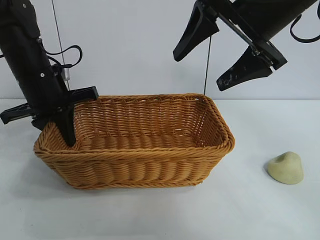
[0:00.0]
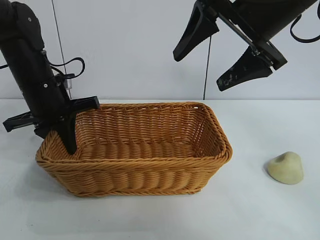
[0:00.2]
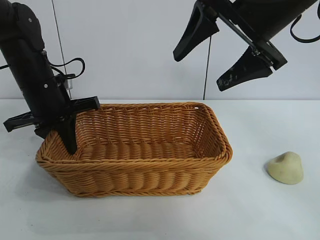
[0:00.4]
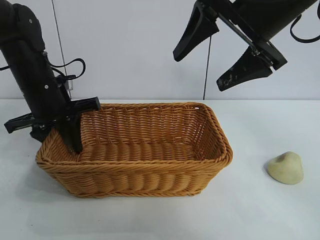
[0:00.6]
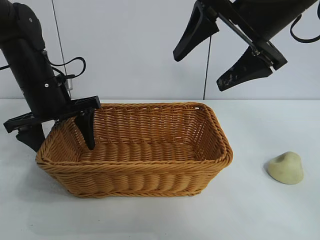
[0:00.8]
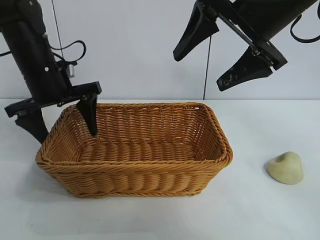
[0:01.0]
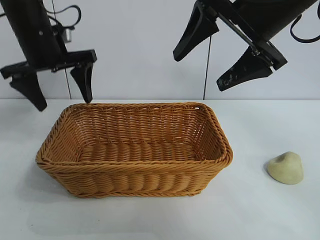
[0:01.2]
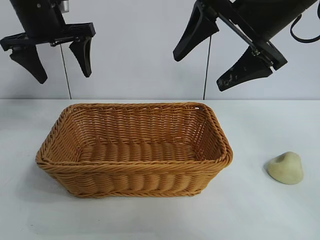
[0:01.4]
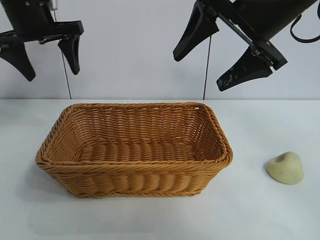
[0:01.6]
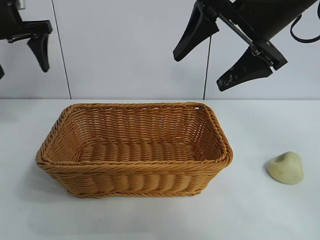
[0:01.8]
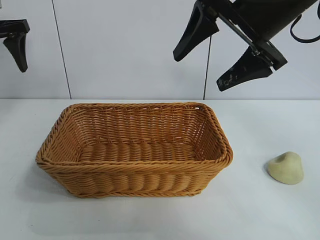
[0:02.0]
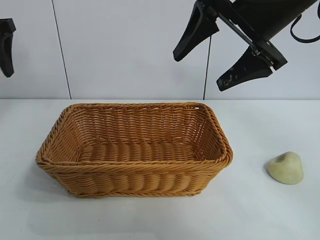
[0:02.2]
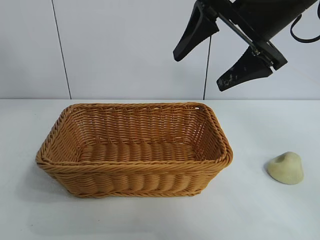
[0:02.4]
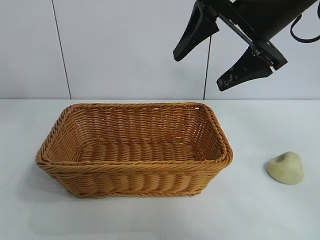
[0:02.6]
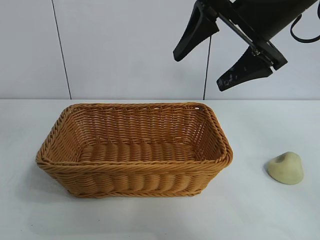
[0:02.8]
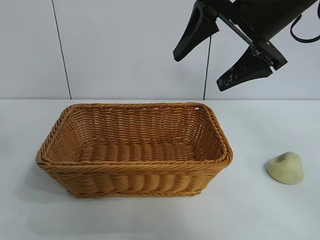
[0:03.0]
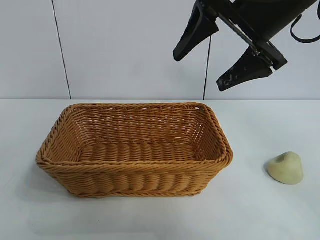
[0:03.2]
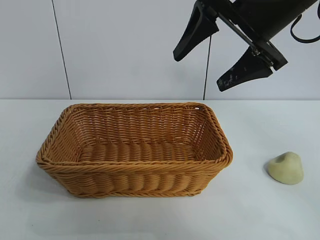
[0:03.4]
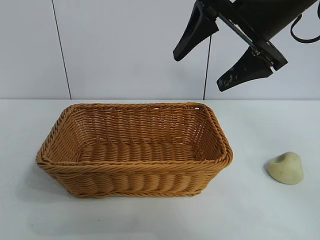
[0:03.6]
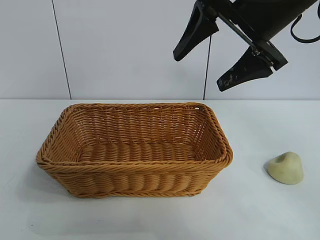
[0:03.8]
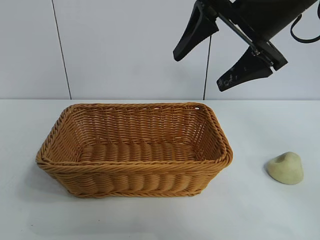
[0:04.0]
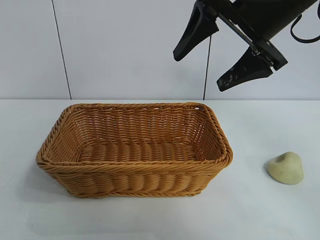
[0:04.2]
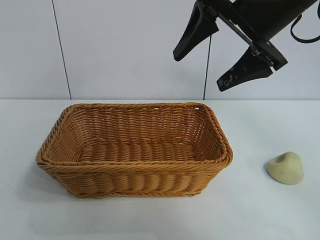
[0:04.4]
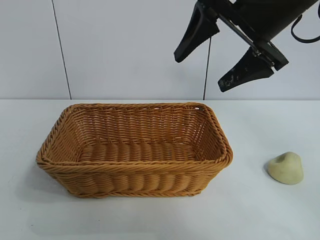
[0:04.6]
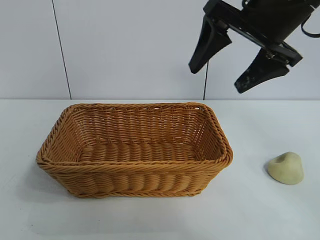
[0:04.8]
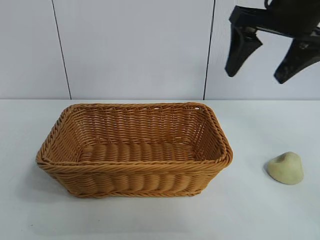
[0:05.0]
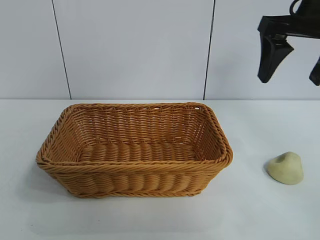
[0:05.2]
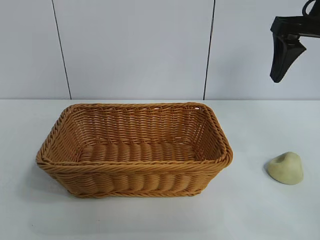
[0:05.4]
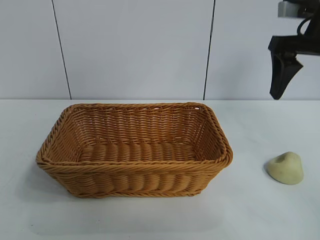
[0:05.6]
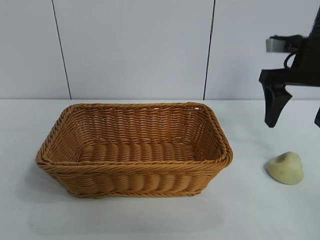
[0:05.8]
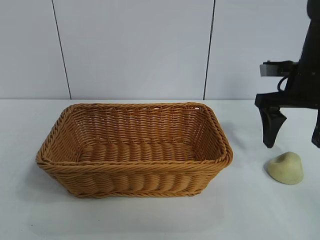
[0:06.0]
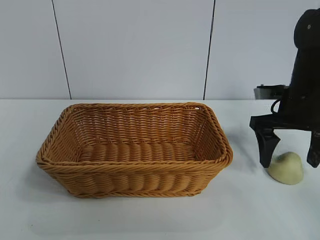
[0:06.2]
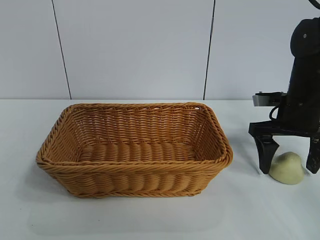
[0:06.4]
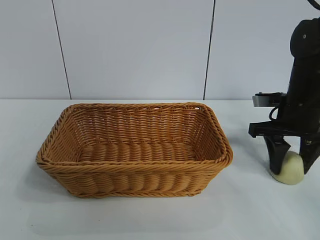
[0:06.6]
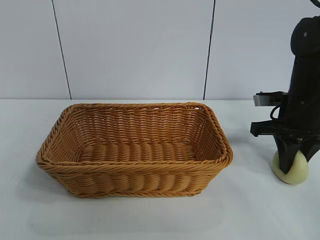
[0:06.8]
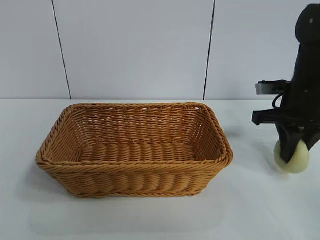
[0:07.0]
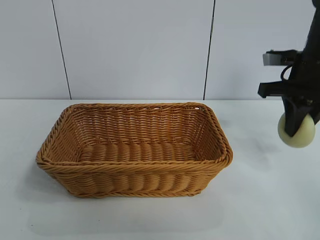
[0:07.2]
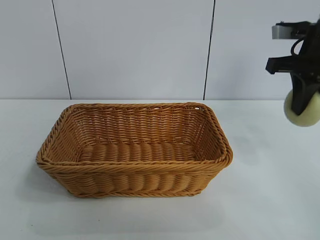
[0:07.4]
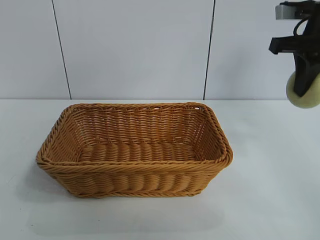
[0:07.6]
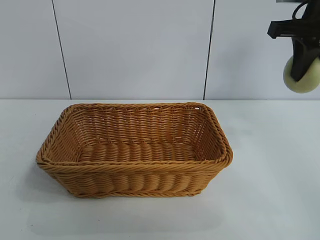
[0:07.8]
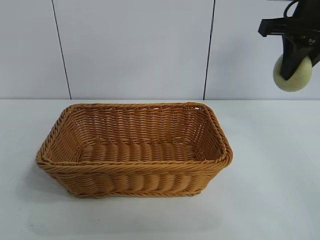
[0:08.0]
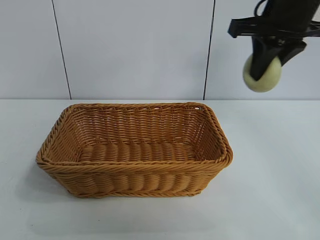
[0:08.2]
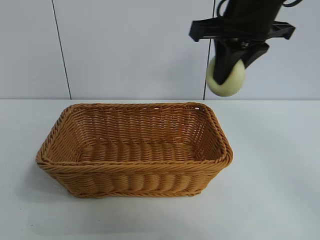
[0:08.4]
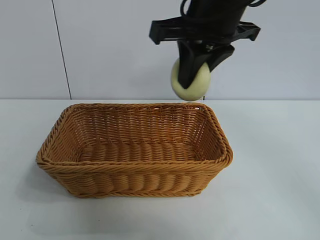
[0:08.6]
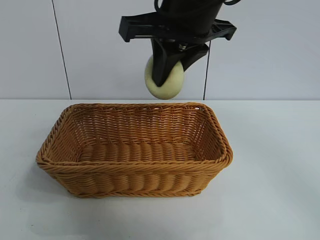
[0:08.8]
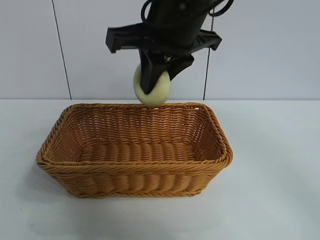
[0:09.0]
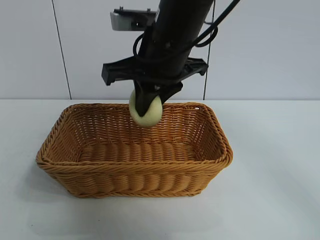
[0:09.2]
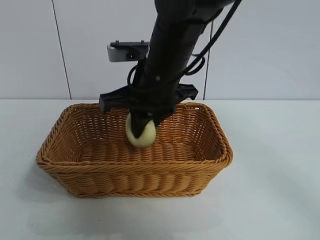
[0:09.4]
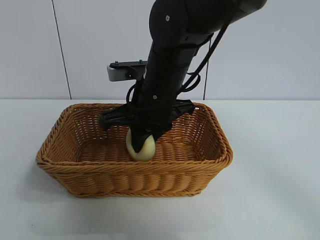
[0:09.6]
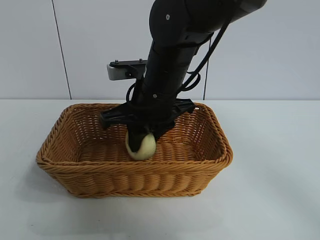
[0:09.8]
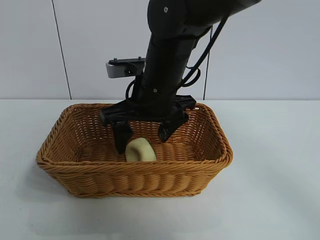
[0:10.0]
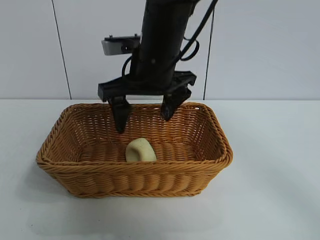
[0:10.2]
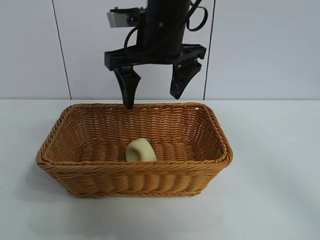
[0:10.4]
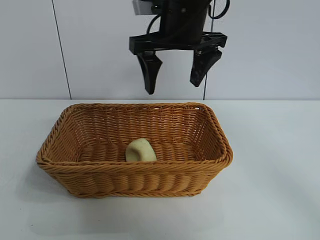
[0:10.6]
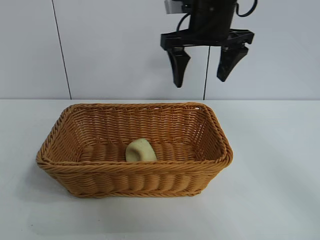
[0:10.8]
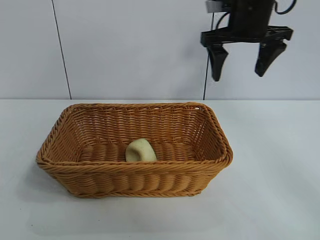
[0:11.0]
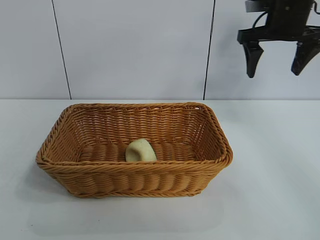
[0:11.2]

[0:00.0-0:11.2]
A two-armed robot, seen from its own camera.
Task of the whole recording: pick up the egg yolk pastry and put it into the basket.
Step, 0:00.8 to 0:06.6: Grasp egg yolk pastry with right gripper.
Step, 0:06.8 to 0:09.8: Place the egg yolk pastry in the basket with right gripper.
